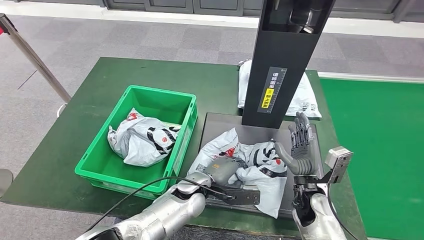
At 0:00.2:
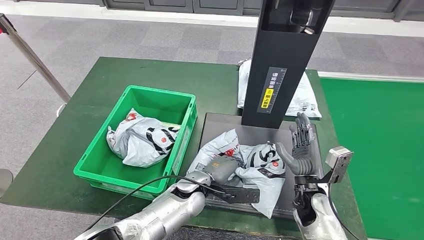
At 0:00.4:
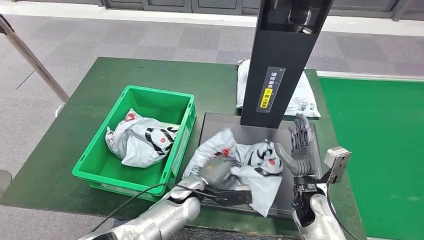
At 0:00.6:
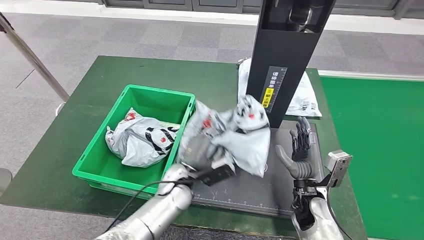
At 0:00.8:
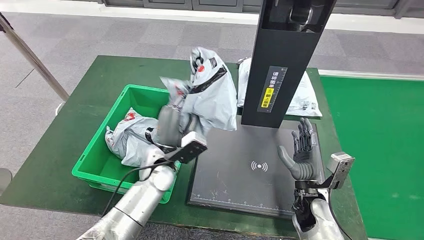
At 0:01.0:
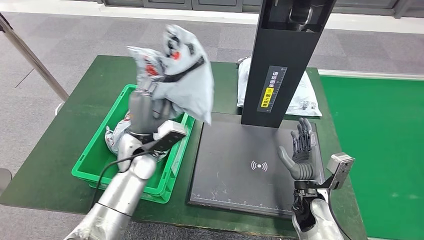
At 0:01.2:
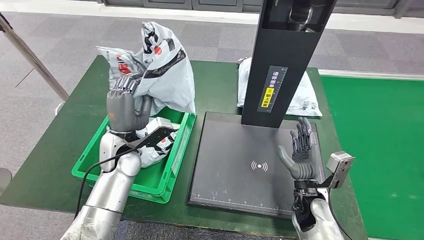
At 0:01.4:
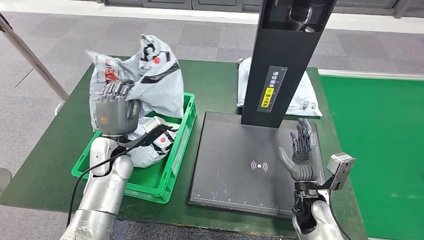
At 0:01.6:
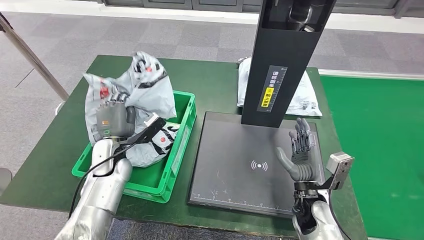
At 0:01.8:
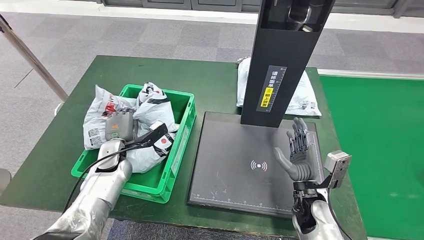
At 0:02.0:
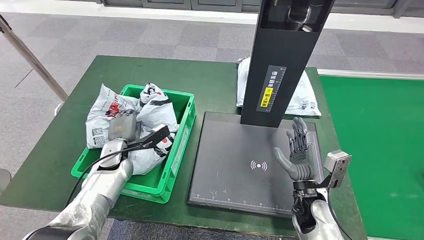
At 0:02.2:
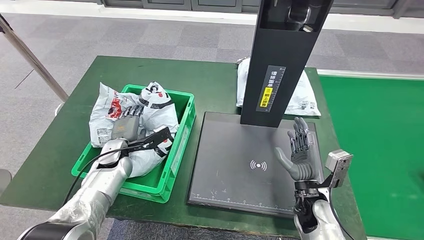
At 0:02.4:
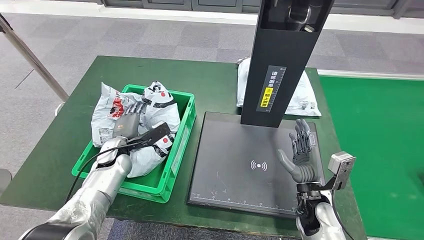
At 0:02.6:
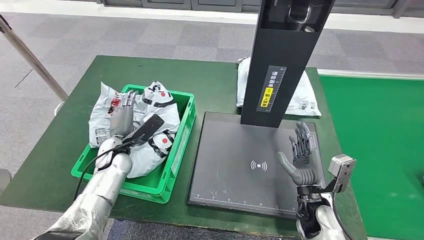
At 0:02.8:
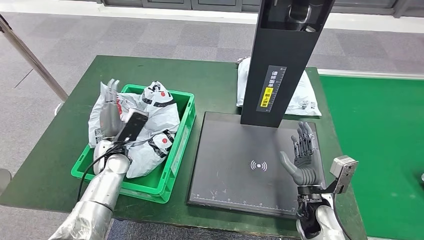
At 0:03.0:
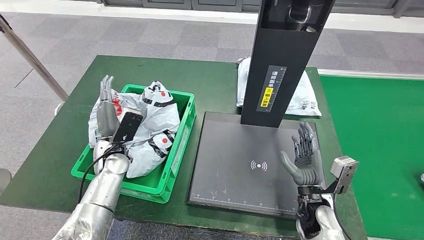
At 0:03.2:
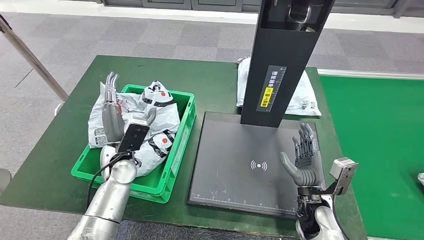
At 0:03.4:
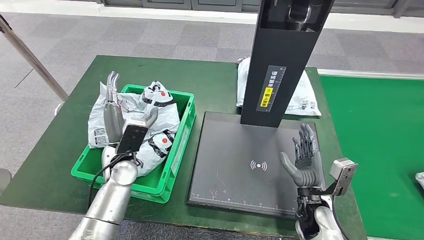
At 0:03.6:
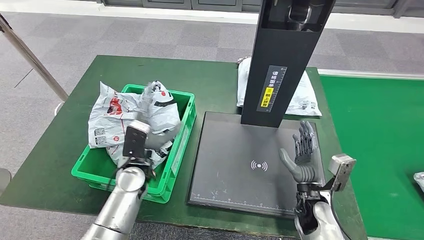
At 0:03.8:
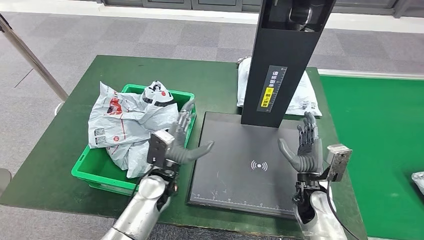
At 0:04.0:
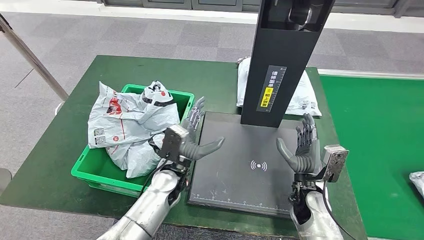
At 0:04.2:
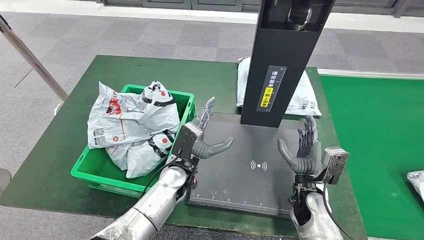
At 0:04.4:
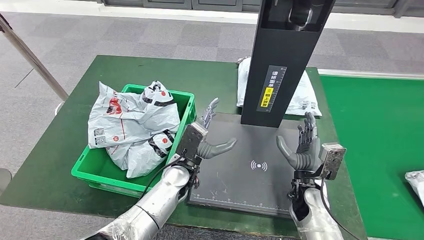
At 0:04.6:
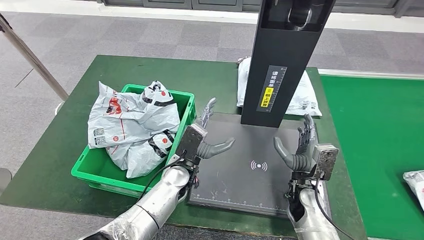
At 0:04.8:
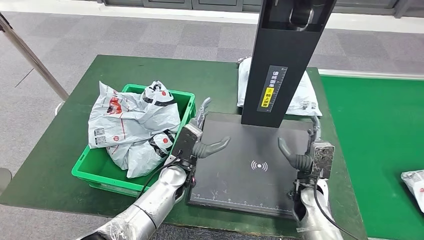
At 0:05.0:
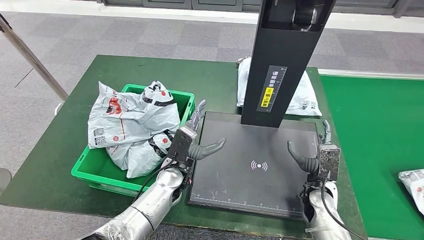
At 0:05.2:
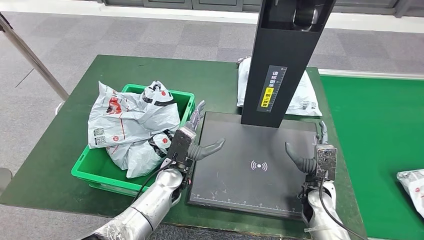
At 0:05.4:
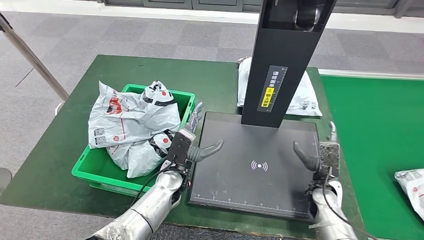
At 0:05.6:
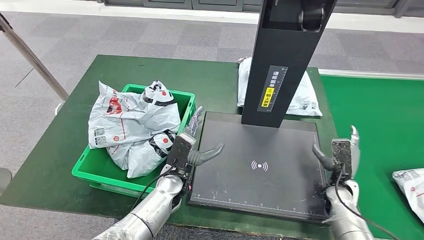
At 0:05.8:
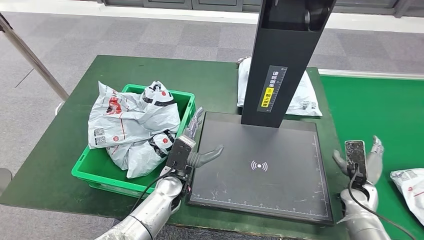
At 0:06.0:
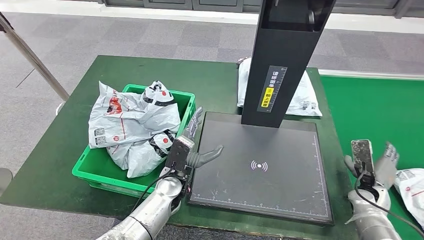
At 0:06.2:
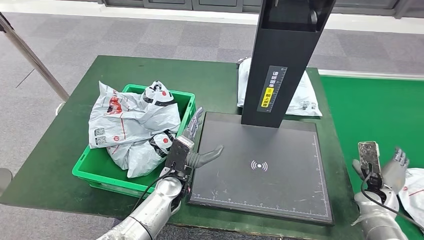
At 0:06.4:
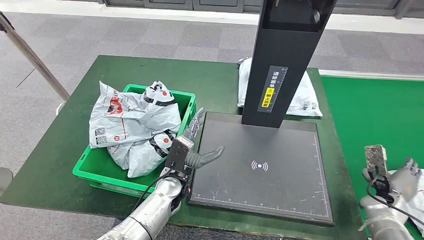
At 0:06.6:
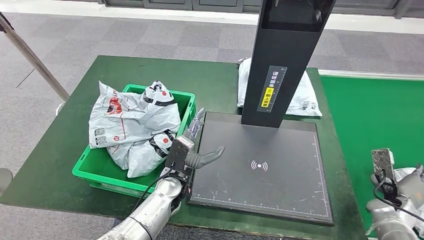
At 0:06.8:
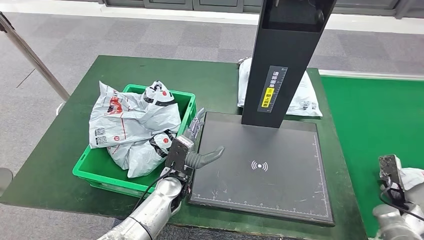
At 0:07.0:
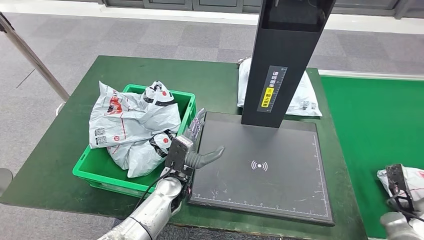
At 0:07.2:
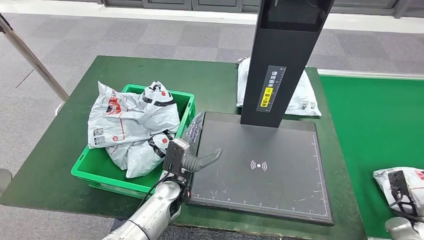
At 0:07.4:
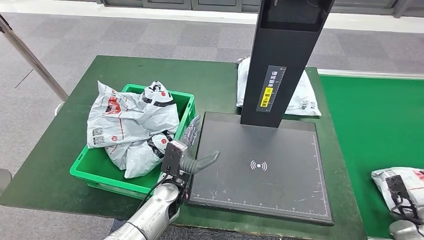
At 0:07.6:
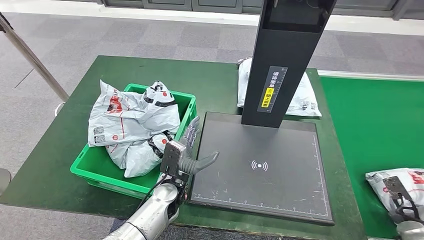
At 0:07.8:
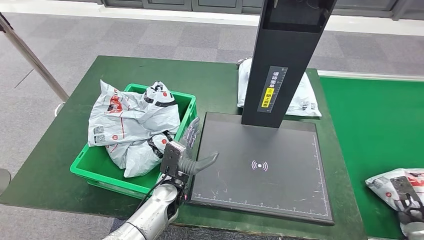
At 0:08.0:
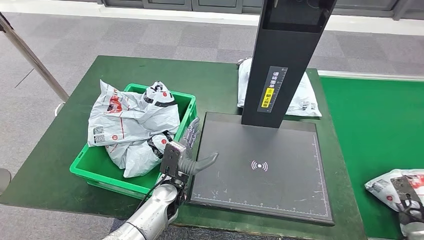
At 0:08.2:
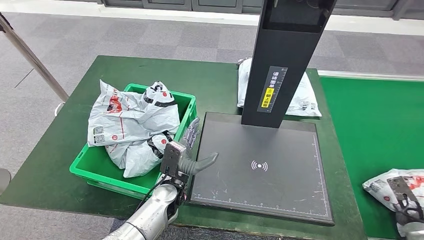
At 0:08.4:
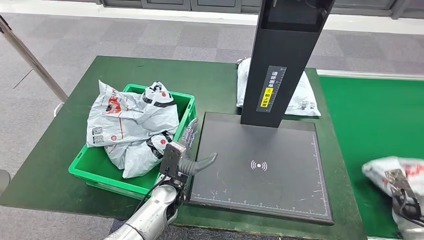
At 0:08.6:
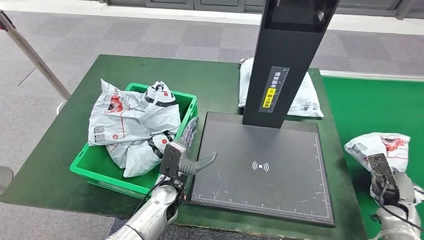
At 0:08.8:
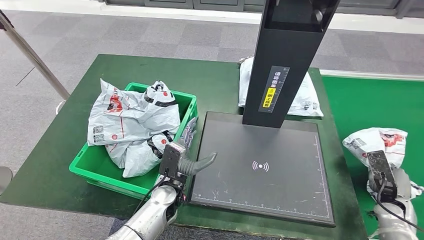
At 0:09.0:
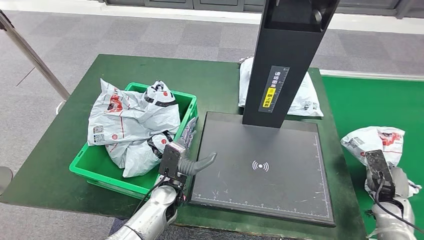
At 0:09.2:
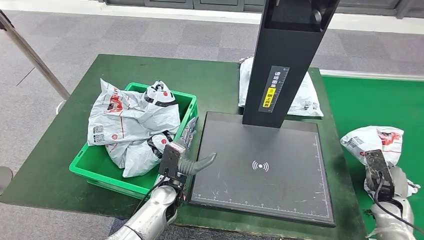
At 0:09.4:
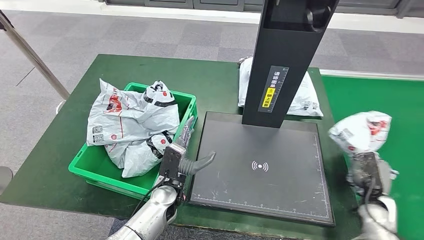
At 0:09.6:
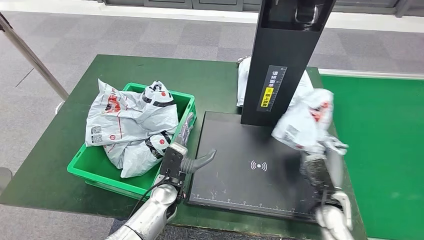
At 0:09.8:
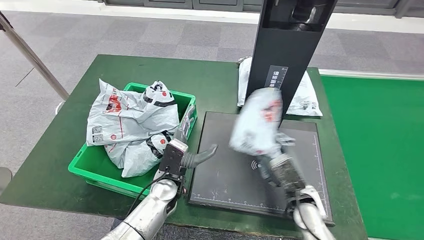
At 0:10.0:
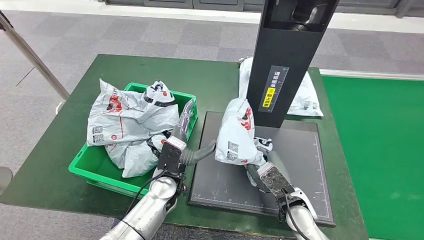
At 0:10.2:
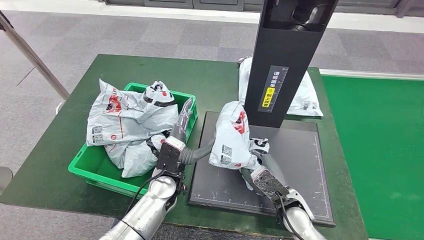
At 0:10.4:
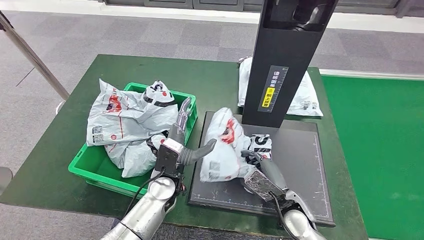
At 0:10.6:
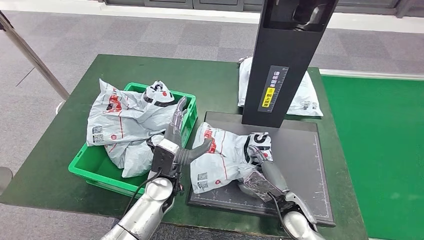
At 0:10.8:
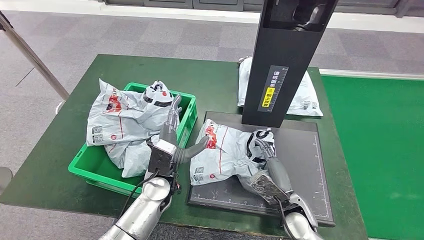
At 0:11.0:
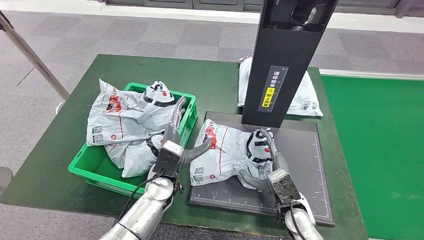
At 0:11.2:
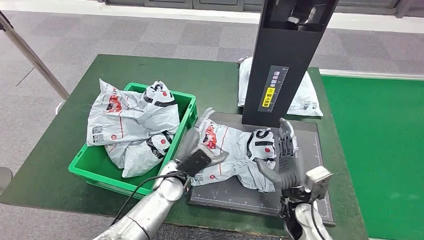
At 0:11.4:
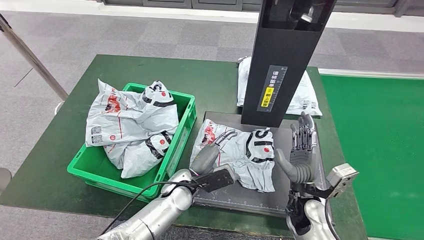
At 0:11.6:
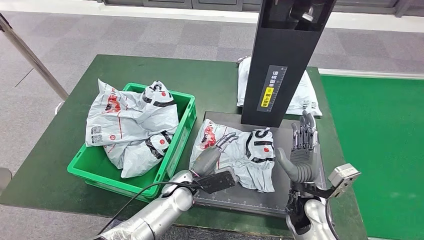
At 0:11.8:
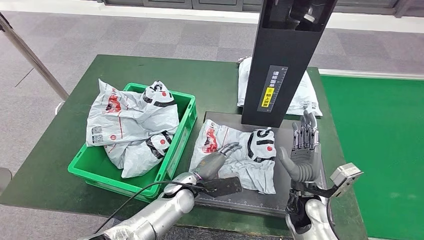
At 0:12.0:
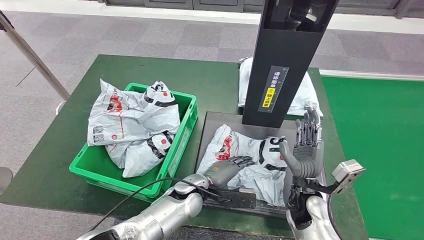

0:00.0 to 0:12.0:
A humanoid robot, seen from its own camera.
Step, 0:01.0 to 0:02.8: Place the parcel into the delivery box.
Step, 0:03.0 to 0:08.6: Pick up the parcel from the conveyor belt.
Step, 0:09.0 to 0:11.0: Place the parcel onto the inbound machine.
0:03.0 to 0:04.4: The left hand goes some 20 cm to the right.
0:04.4 to 0:06.0: The right hand shifts some 20 cm to the right.
0:06.0 to 0:07.6: The right hand is displaced to the right and backward by about 15 cm.
0:07.6 to 0:09.0: The right hand heads to the left and forward, covering roughly 10 cm.
0:10.4 to 0:12.0: The left hand travels downward by approximately 5 cm.

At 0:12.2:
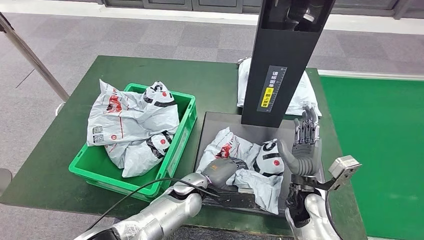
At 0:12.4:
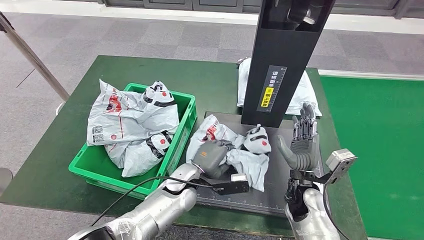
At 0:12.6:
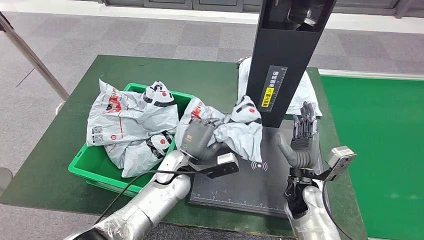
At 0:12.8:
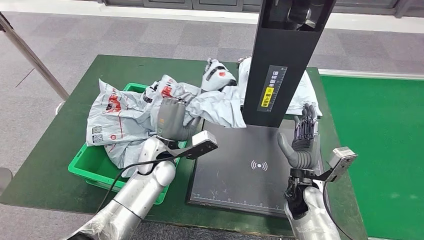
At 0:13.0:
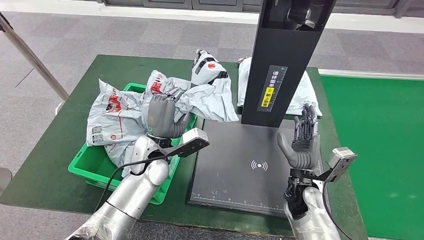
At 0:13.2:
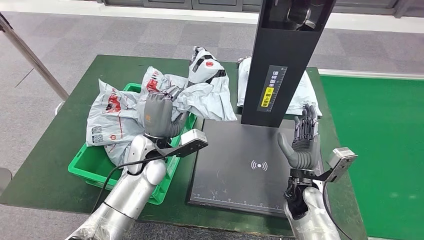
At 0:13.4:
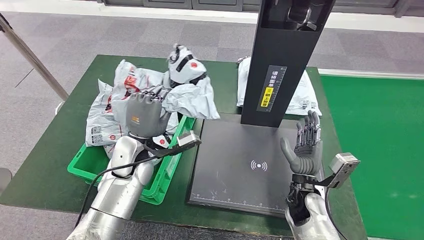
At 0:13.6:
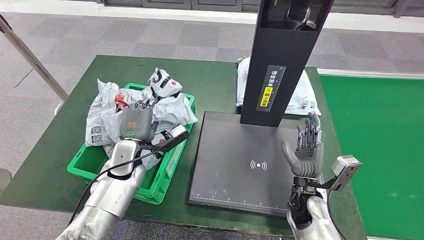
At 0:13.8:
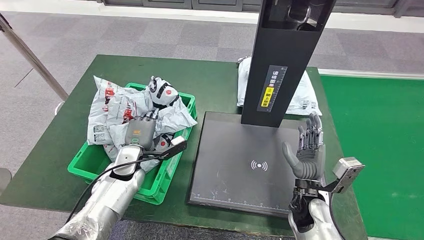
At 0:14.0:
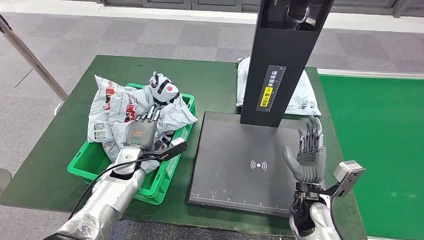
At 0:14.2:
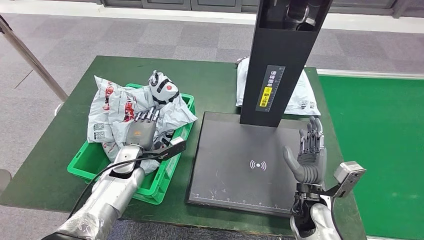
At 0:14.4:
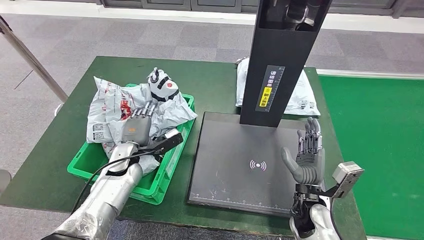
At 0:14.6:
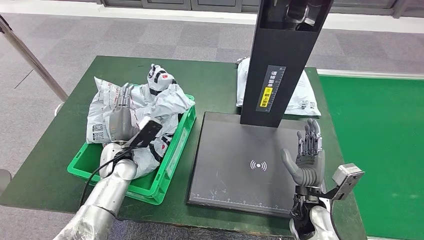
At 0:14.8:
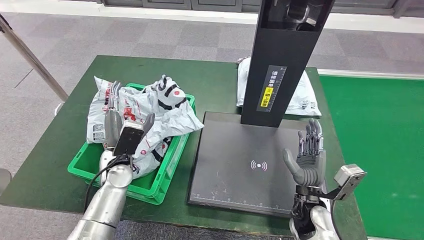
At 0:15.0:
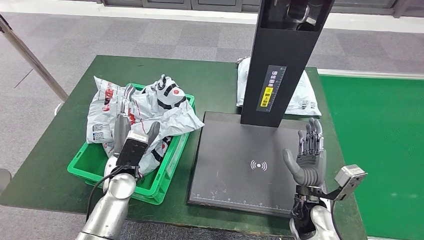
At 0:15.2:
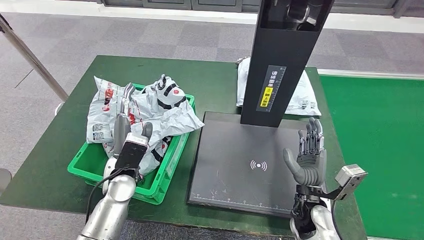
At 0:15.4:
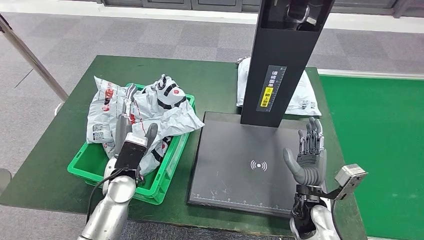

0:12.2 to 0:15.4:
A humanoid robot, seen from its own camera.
Step, 0:13.2 to 0:15.4: Place the parcel into the delivery box.
0:13.8 to 0:15.4: The left hand shifts some 10 cm backward and upward.
